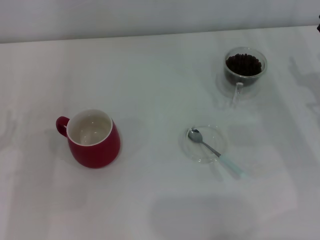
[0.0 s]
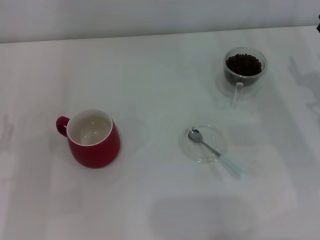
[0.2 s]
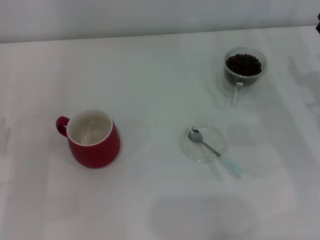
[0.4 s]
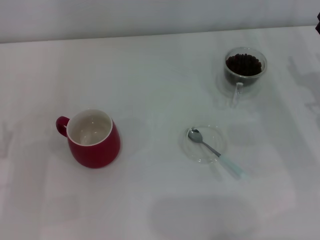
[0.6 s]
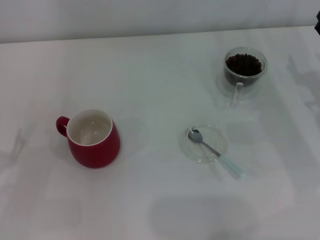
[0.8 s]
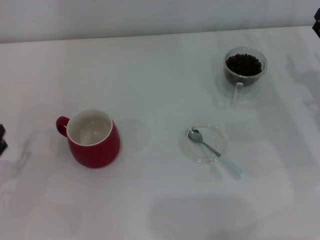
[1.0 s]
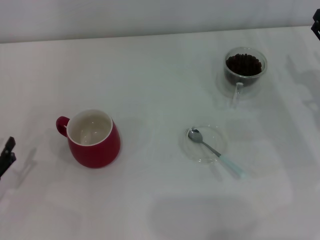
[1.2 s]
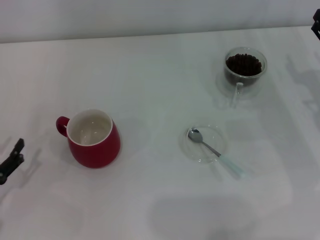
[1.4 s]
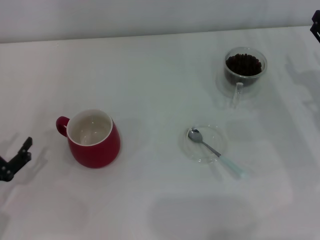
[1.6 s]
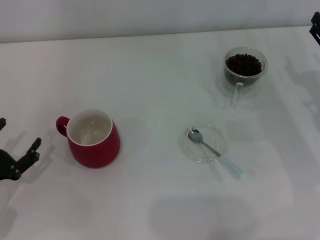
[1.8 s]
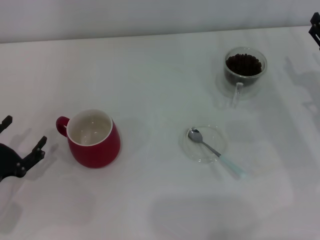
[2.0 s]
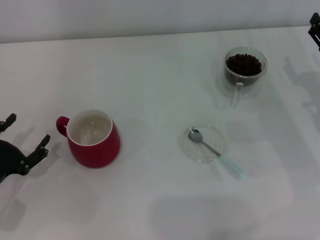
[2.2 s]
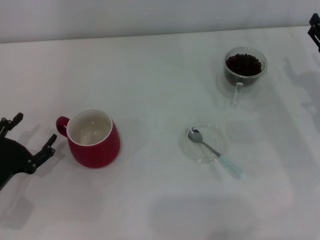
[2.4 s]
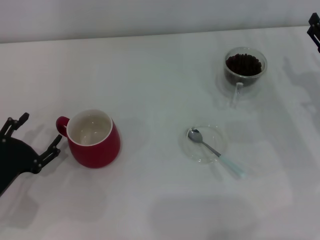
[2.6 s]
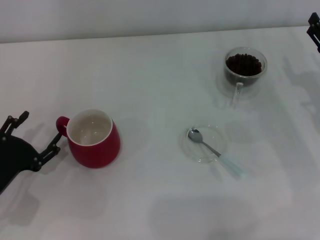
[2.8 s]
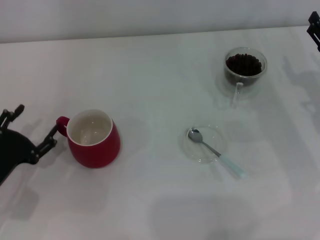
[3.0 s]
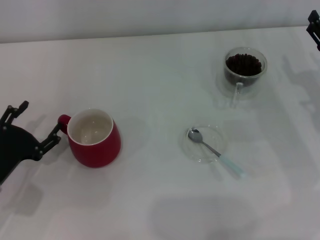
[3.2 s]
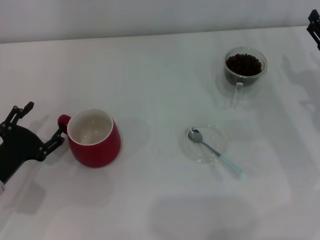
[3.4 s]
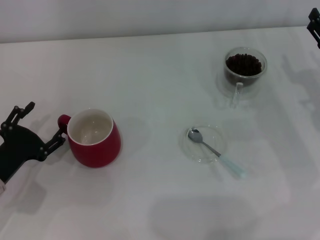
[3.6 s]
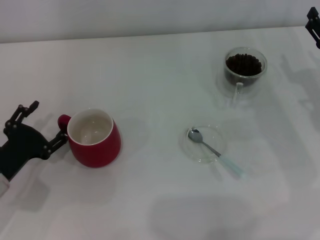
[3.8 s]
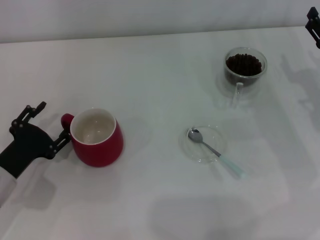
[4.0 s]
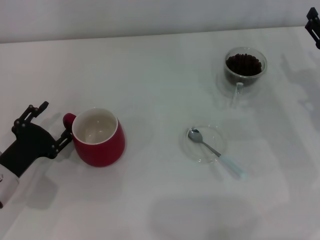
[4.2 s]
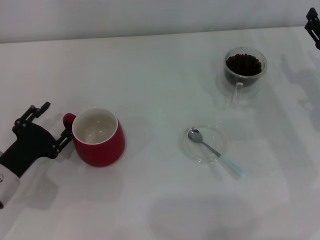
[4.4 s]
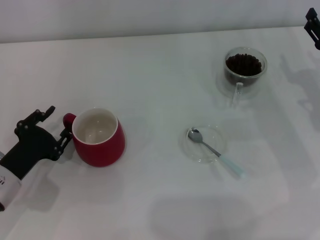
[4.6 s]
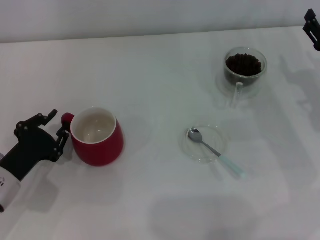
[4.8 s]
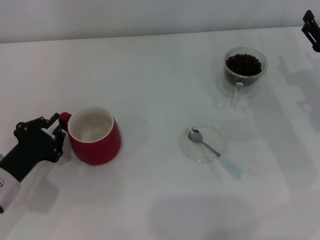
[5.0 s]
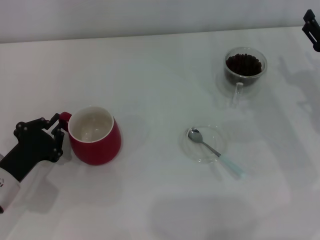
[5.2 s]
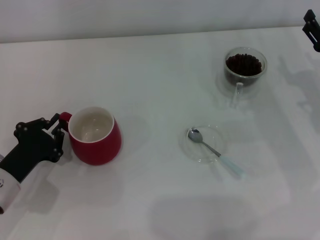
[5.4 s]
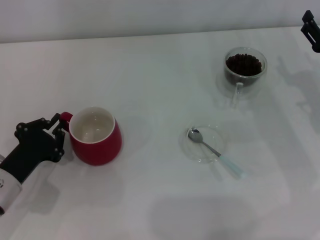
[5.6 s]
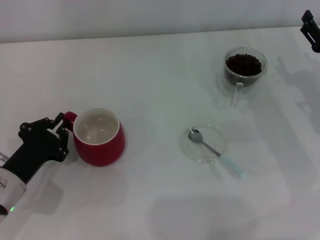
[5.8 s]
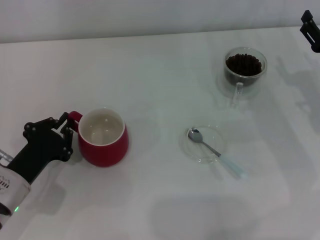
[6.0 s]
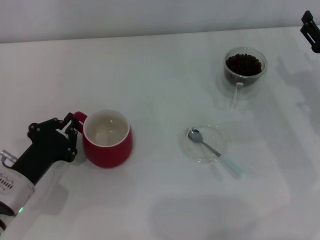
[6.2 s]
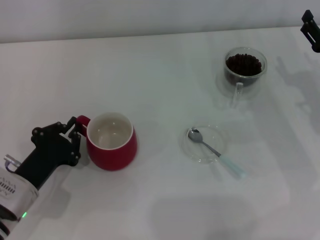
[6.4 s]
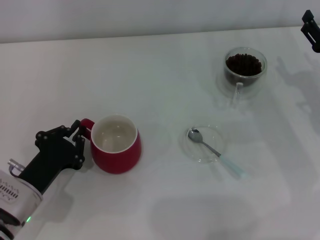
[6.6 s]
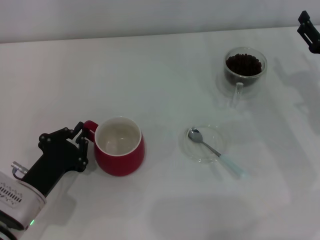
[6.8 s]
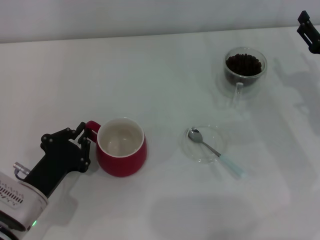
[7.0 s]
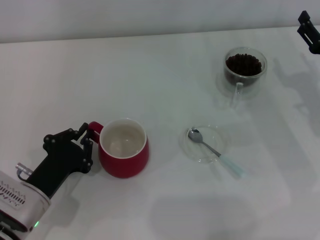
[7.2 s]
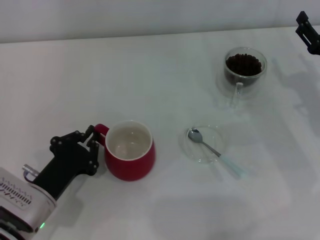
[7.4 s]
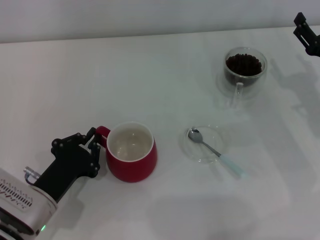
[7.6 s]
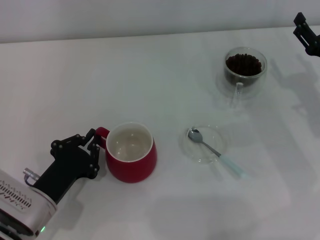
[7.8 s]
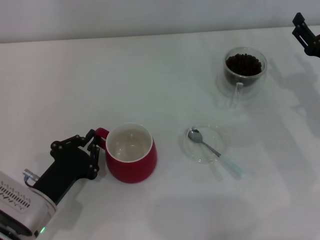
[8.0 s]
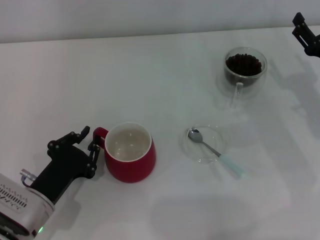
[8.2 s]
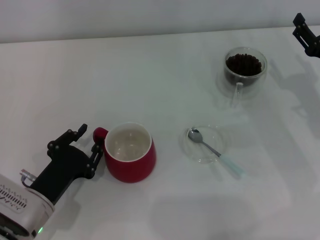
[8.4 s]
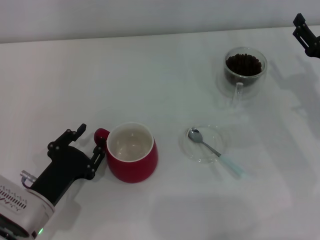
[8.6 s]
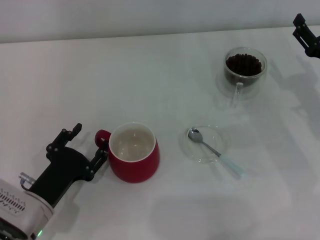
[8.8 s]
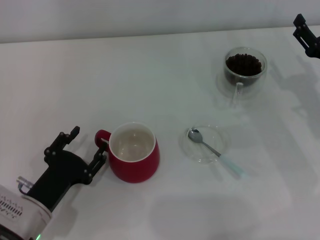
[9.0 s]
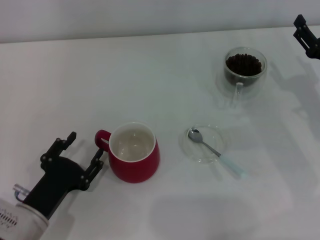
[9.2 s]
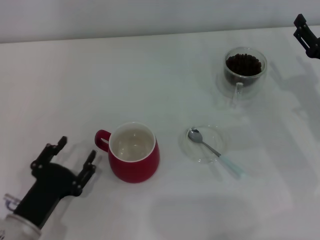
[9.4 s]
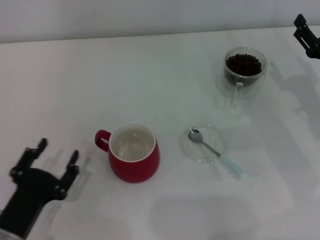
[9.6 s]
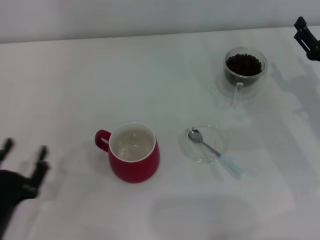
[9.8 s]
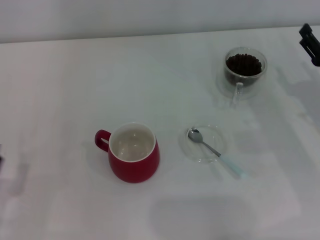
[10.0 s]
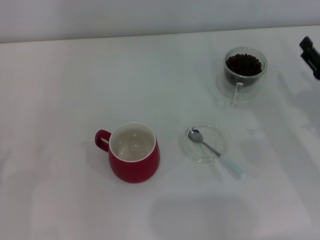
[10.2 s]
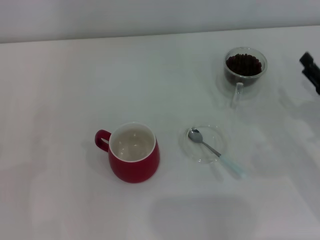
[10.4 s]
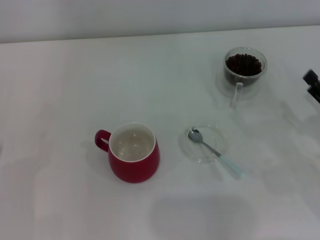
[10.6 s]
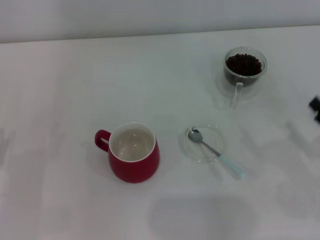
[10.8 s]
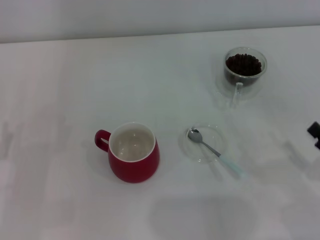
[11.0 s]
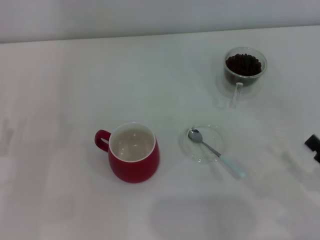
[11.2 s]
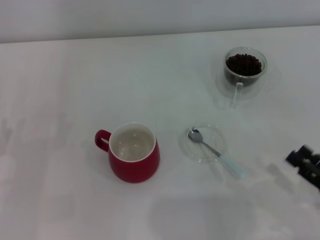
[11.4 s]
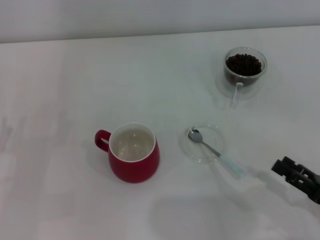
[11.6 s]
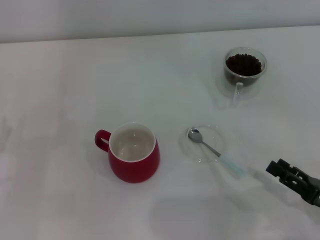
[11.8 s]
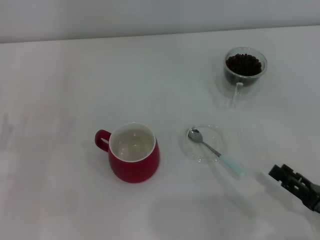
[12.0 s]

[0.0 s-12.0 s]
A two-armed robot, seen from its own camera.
Task of the whole recording: Use a blue spoon to take out the coffee beans from the glass and pour them into the red cup.
Step, 0.0 to 9.2 s: Move the cup to the center of view with the left gripper.
1.6 to 3.0 s: The left gripper moves roughly 5 cm.
3.0 to 4.4 s: There are only small adjustments of the grippers.
4.4 to 6.0 s: The left gripper closes.
6.0 to 7.6 s: The grippers move only a little.
7.6 to 9.0 s: The left gripper opens up.
9.0 to 10.4 s: The left gripper shifts approximately 10 cm to the left; the right gripper moves backward, roughly 5 cm.
10.4 to 12.0 s: The right gripper travels backward by approximately 15 cm.

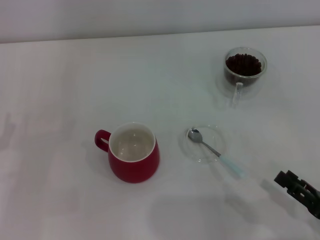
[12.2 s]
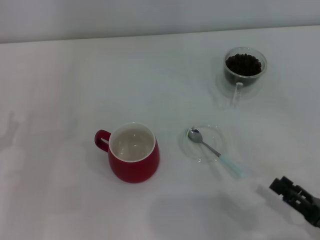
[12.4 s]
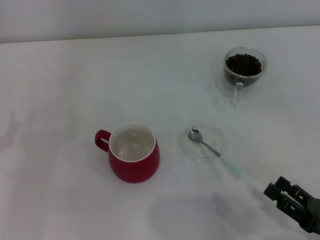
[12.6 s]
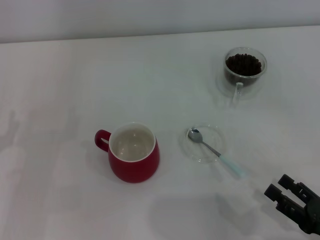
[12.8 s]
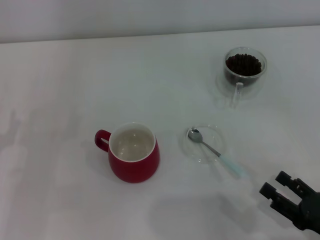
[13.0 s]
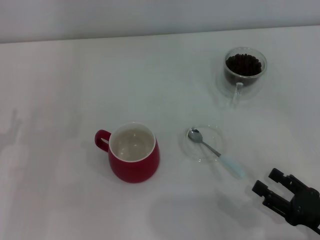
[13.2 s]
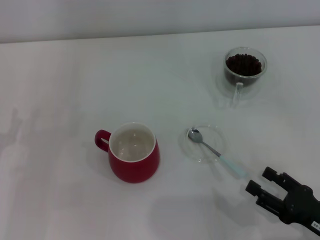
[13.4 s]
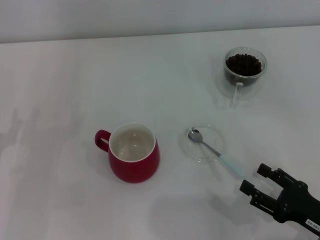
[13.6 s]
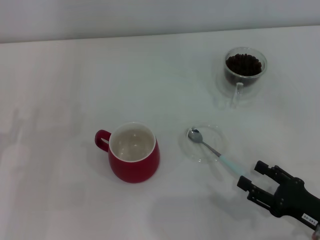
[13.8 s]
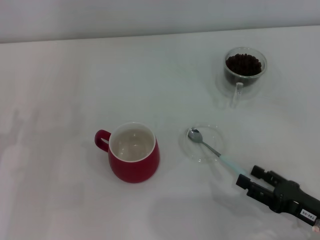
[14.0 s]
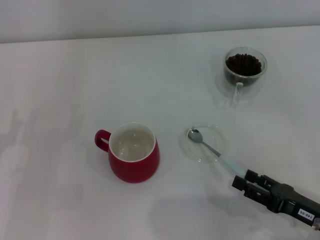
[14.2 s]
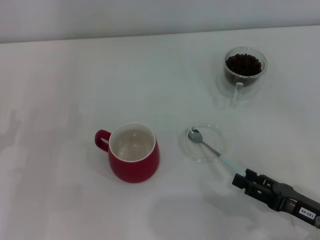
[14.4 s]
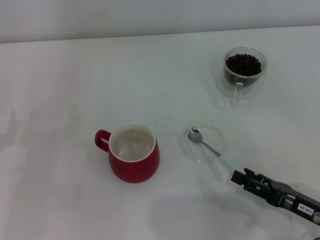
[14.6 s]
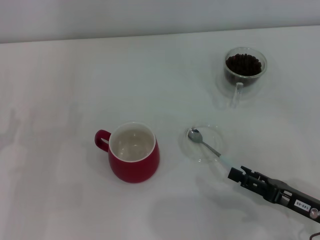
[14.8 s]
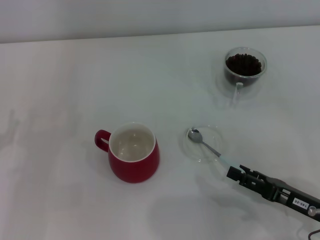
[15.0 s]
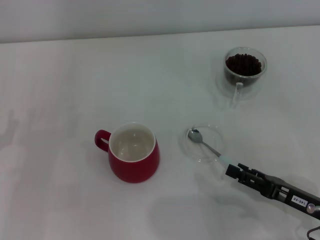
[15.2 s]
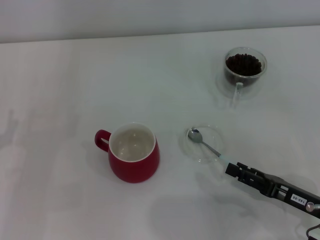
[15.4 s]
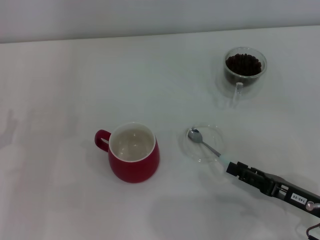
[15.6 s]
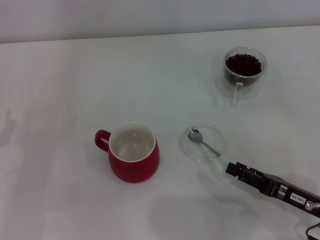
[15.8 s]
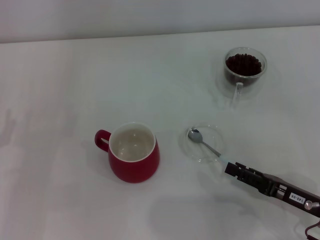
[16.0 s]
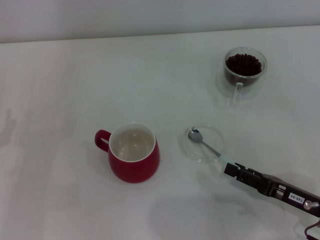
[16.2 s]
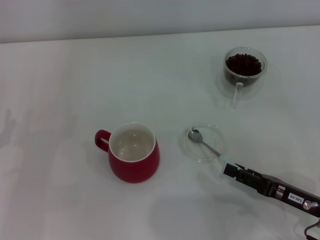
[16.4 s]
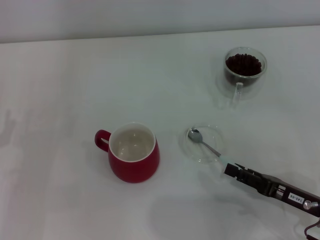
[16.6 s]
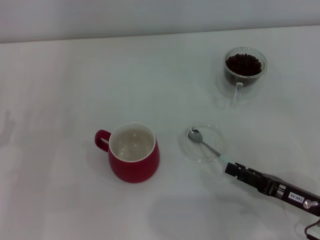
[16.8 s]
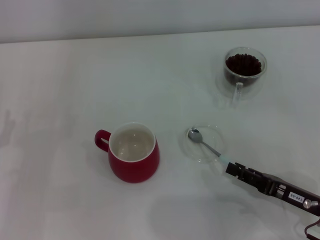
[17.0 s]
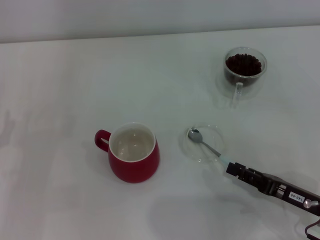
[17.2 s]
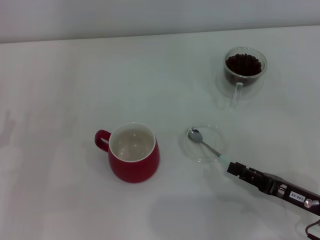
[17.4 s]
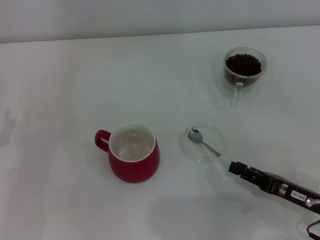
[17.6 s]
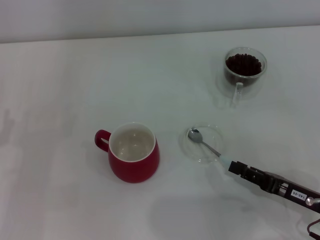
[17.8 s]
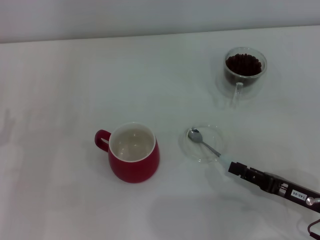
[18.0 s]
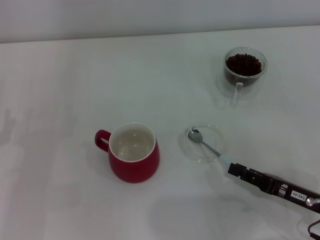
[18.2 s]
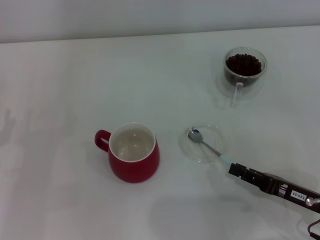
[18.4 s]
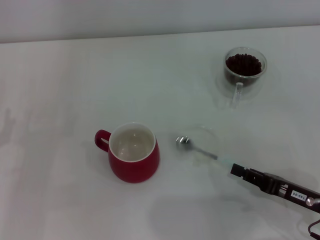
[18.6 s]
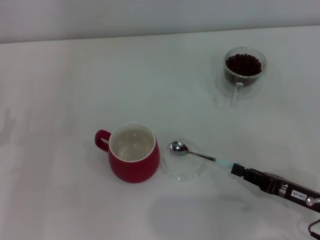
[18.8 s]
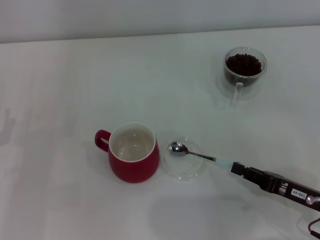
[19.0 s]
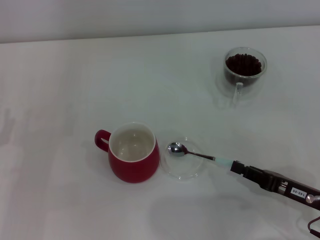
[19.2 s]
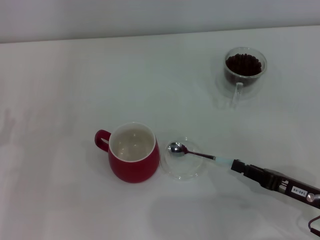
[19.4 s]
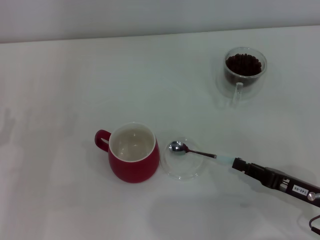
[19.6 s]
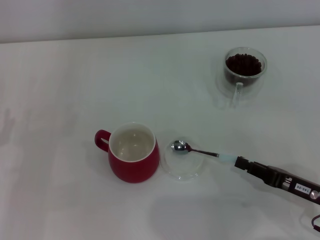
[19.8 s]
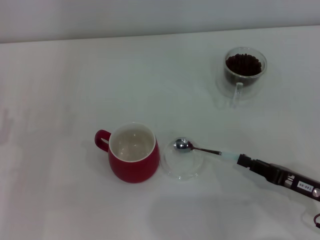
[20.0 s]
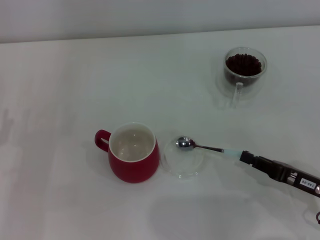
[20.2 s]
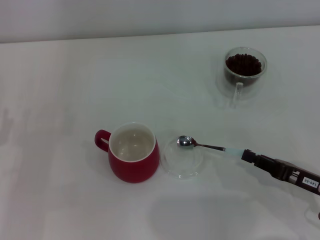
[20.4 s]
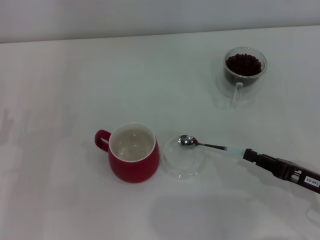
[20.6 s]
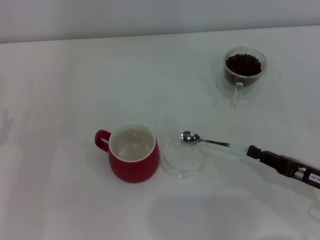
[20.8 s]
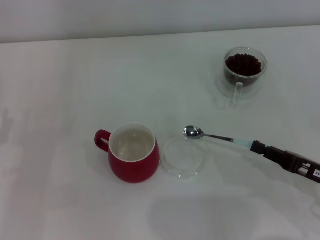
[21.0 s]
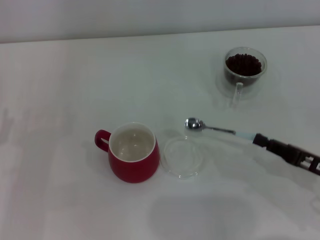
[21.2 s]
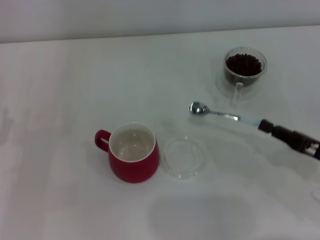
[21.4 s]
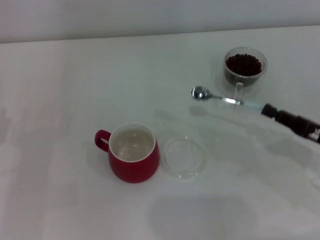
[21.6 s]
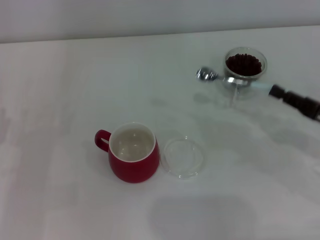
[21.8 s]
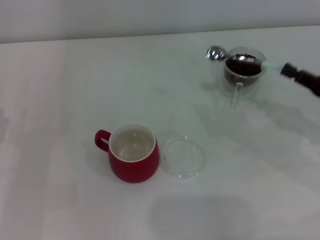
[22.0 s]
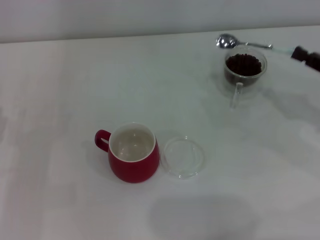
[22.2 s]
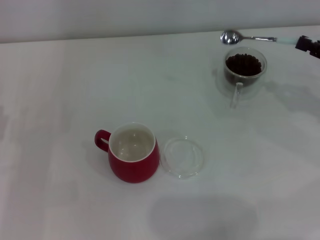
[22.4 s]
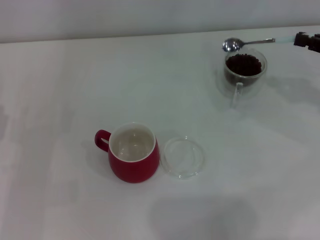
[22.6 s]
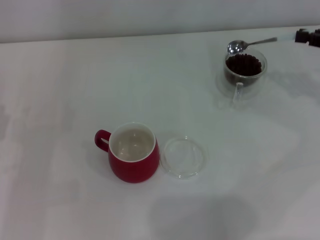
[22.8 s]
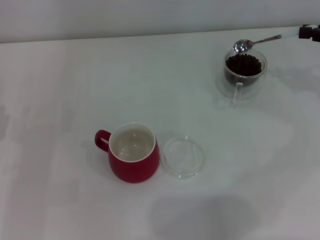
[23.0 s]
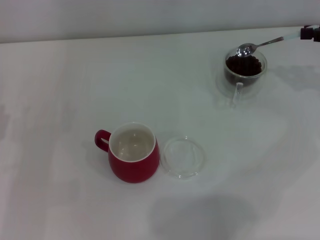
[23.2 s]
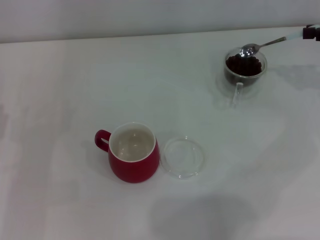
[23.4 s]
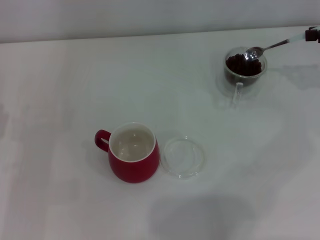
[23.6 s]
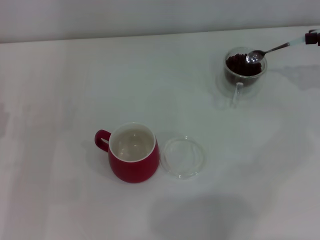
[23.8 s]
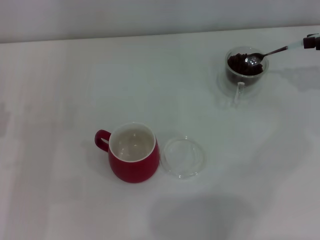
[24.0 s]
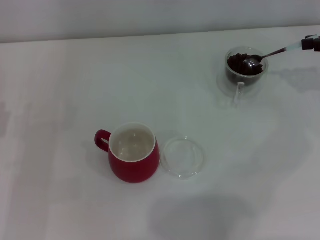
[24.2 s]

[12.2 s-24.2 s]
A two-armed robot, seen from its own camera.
Task of the whole recording: Use a blue spoon to take out the coffee beans from the glass and pour them into the red cup.
Step, 12.2 to 20.6 s: Pick up the spoon with the right gripper.
15.2 to 18.2 s: The two grippers keep their place.
18.2 to 19.8 s: The right gripper closes up.
19.8 to 21.2 s: The grippers stay close to where they were, moving slightly.
21.2 to 22.6 s: The right gripper heads forward, upward and to the right, covering approximately 20 cm.
22.6 to 24.2 s: The right gripper moves roughly 5 cm.
